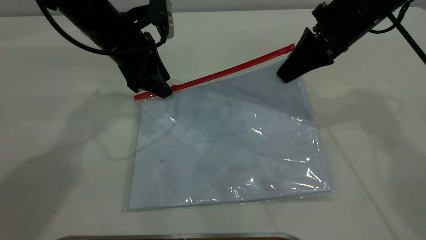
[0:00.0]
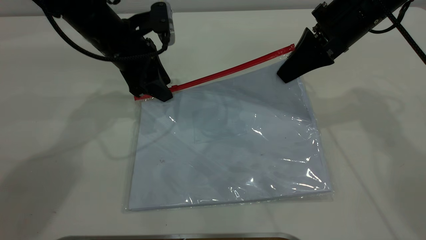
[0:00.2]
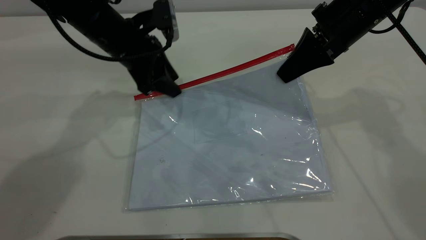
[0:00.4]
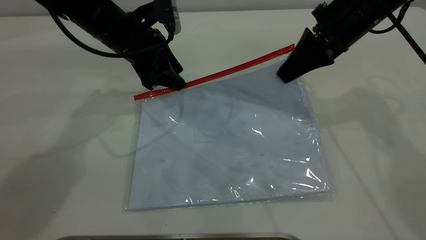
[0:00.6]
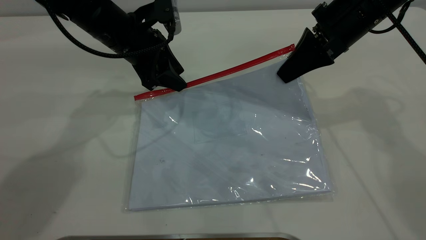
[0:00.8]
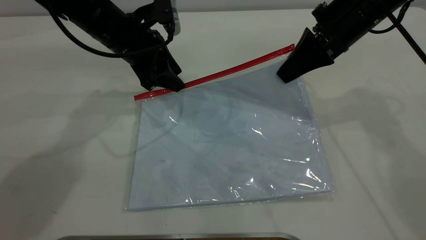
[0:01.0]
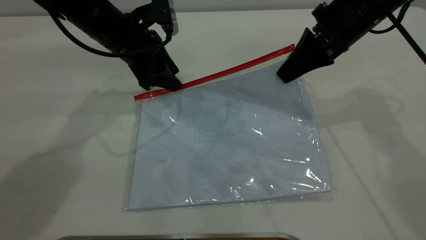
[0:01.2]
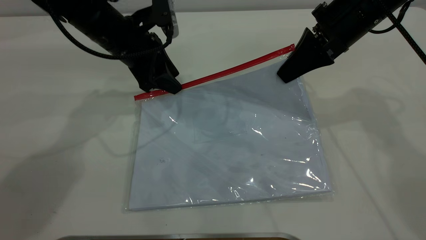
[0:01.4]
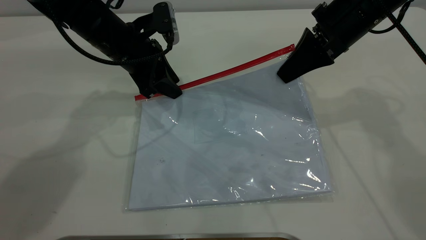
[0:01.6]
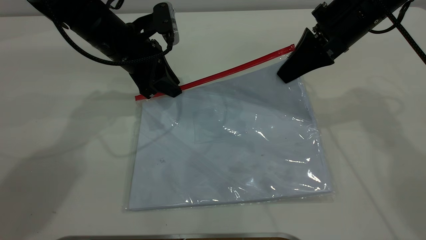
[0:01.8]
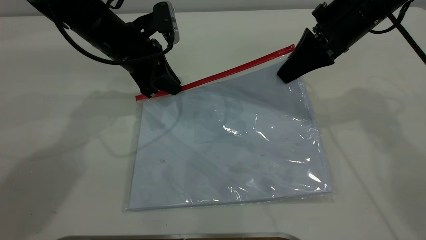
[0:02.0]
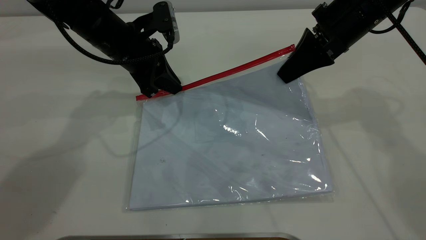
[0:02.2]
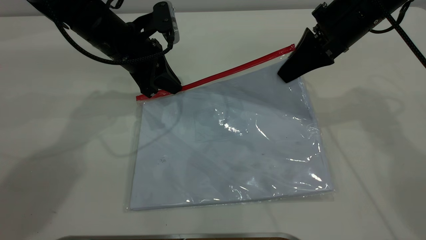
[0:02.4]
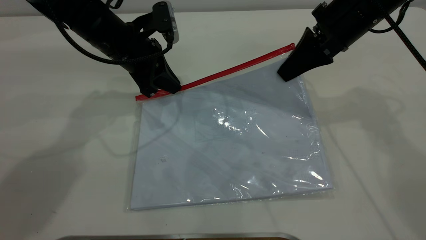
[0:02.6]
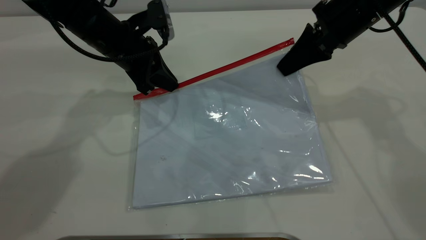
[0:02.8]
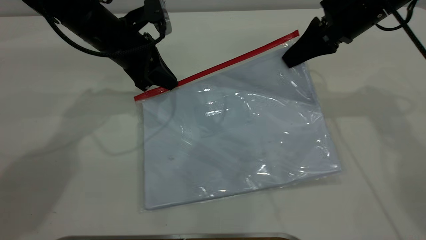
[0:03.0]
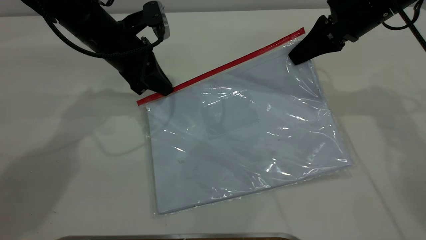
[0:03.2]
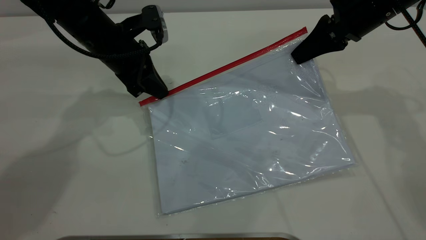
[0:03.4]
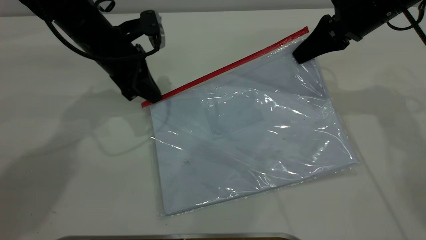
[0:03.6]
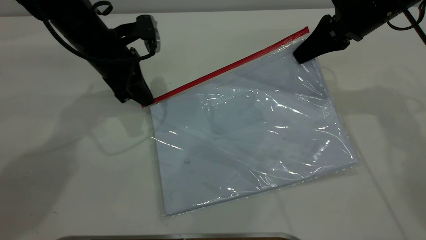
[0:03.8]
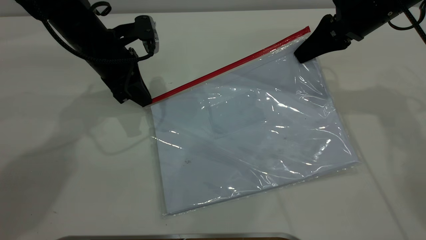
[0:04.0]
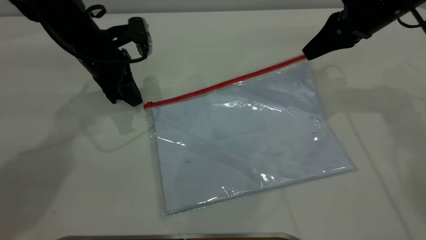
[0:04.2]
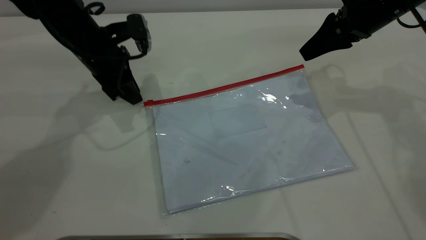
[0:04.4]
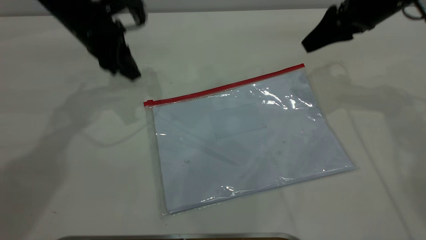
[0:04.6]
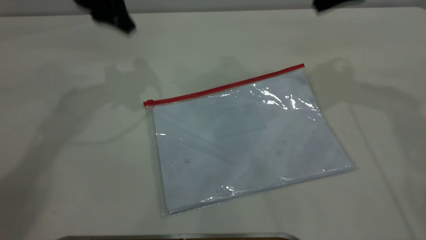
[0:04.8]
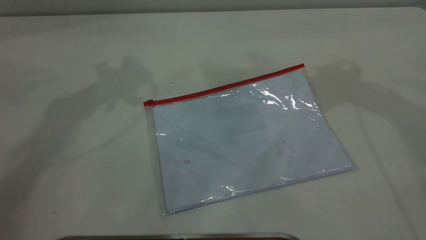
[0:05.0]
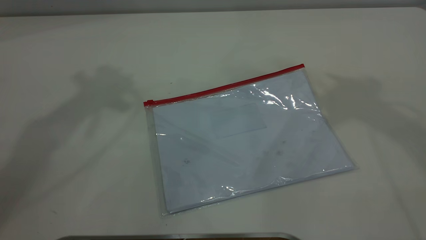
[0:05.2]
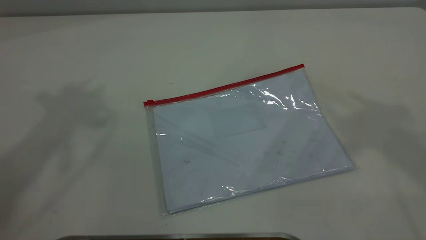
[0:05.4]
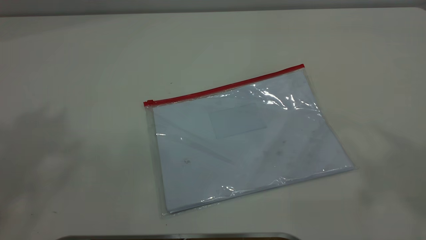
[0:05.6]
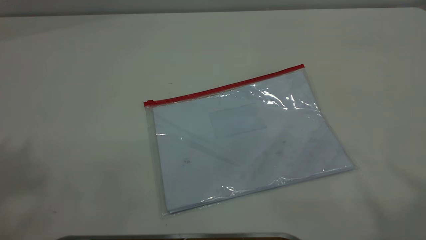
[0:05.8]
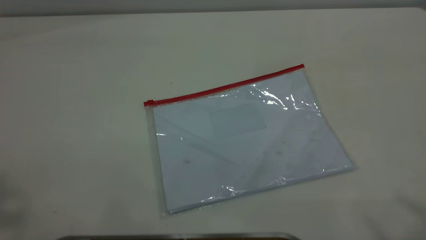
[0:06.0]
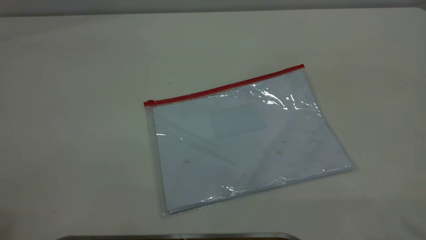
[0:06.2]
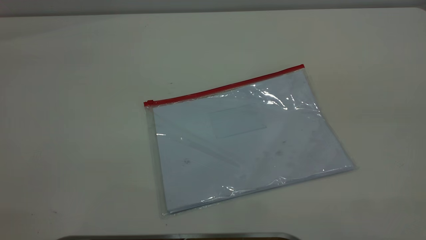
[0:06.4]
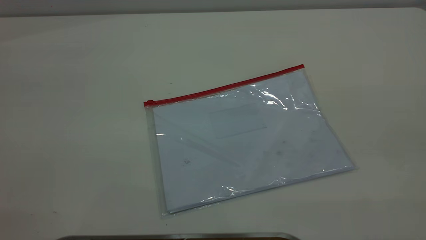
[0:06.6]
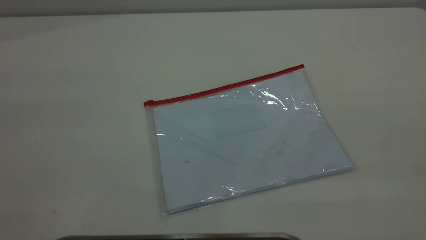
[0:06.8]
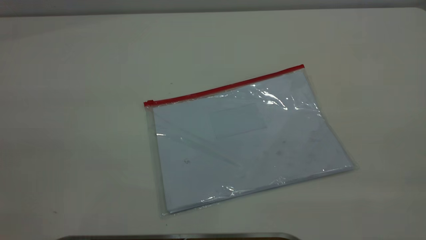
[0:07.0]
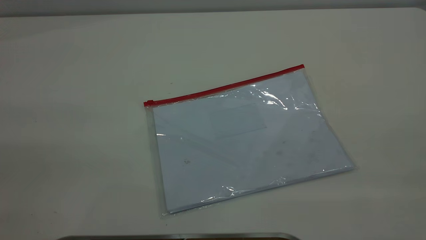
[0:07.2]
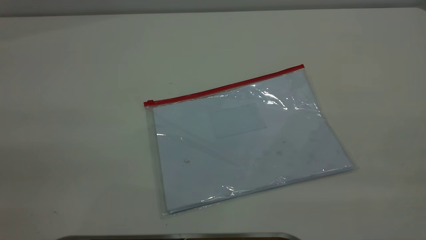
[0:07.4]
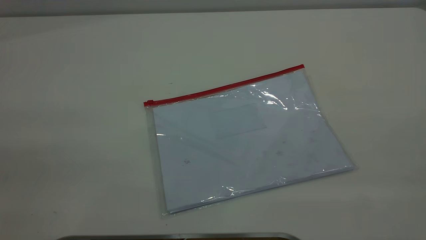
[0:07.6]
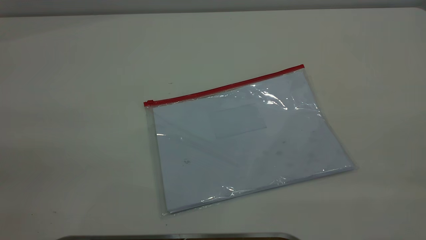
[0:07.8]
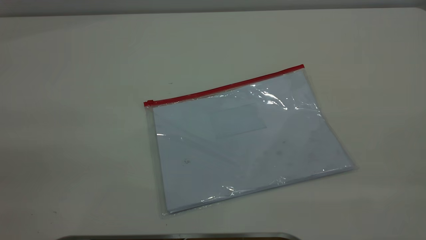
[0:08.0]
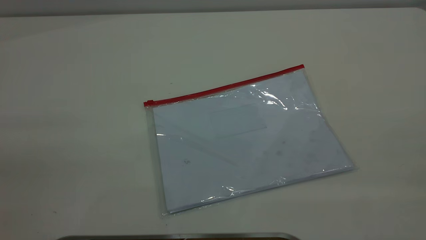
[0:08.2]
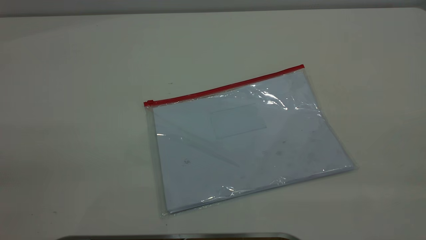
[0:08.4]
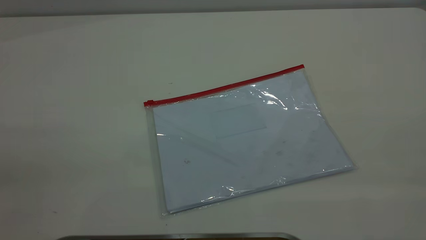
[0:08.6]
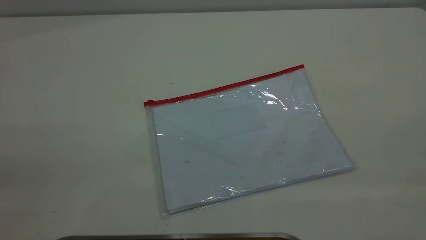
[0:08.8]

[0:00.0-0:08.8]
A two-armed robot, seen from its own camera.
Step, 0:00.0 to 0:03.8: Pulling up the zipper on the transparent plastic bag with the left gripper to close it.
Step, 0:04.2 to 0:05.2: Place the transparent plastic bag.
0:00.0 to 0:01.4: There are only small adjustments of the grippers.
0:01.4 to 0:03.0: The left gripper closes.
0:03.0 to 0:04.4: The right gripper opens its fingers. The left gripper opens its fingers.
0:04.4 to 0:05.8: The grippers both shift upward and backward by some 50 cm.
